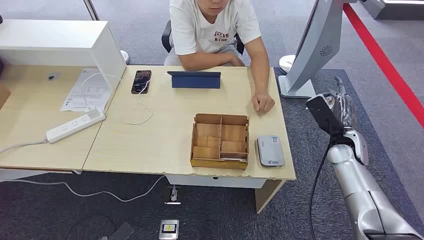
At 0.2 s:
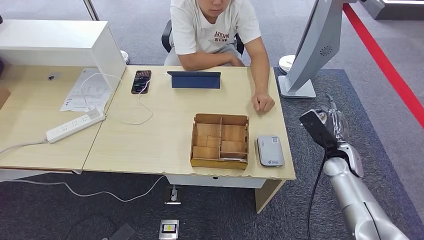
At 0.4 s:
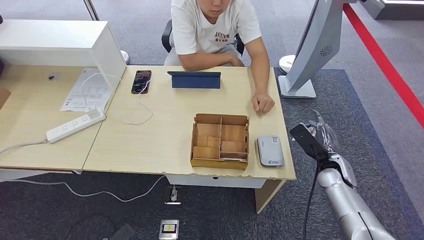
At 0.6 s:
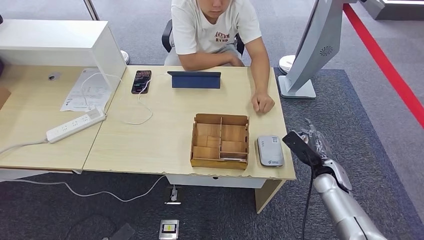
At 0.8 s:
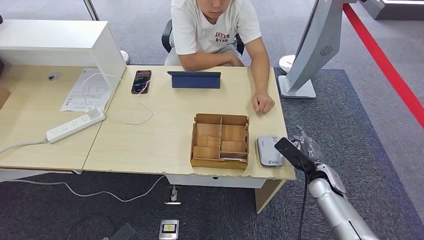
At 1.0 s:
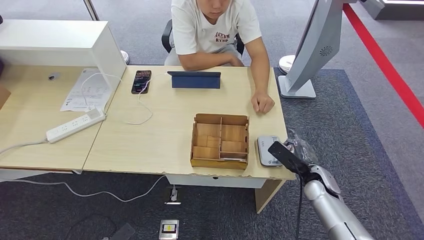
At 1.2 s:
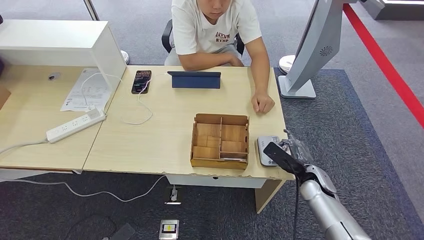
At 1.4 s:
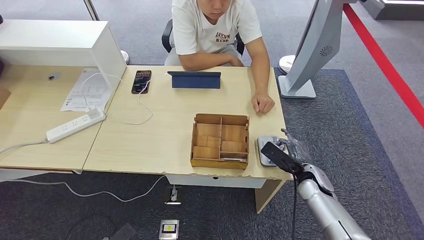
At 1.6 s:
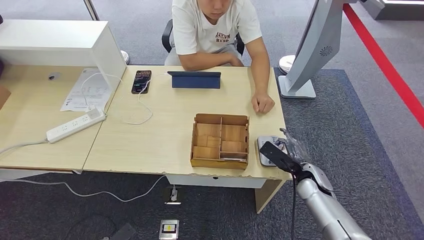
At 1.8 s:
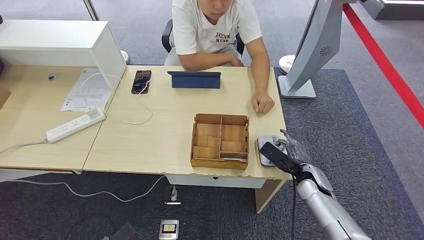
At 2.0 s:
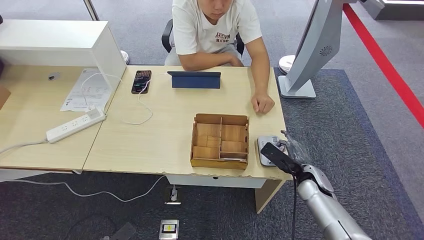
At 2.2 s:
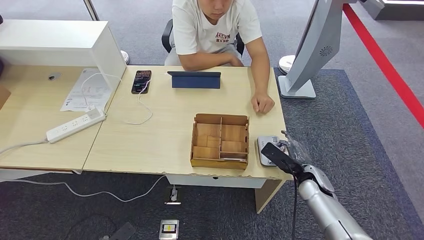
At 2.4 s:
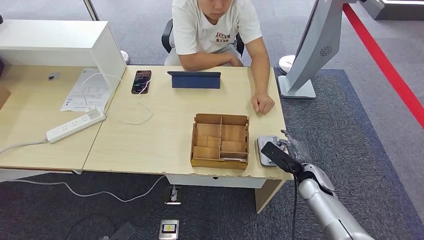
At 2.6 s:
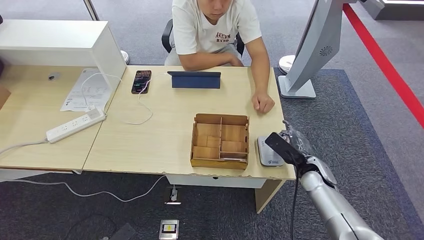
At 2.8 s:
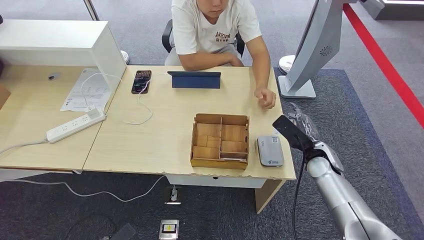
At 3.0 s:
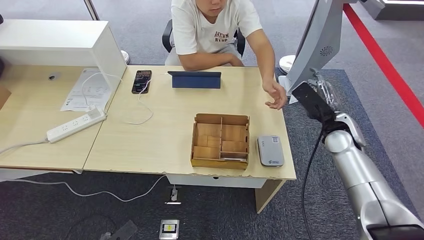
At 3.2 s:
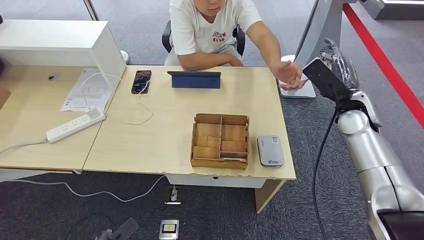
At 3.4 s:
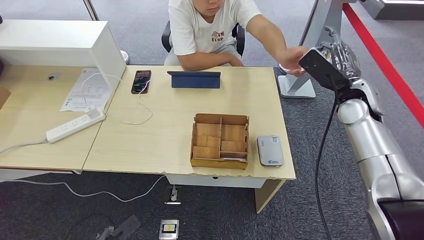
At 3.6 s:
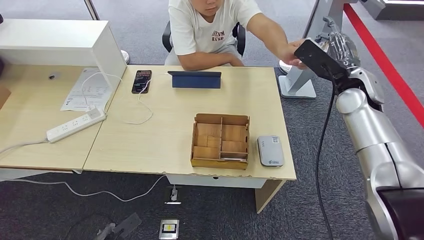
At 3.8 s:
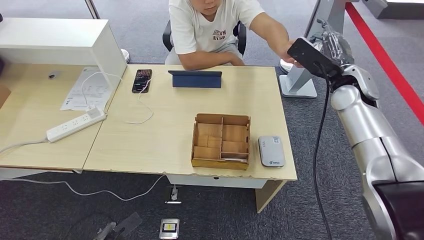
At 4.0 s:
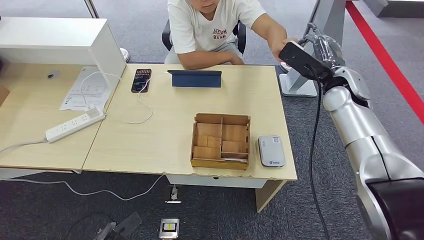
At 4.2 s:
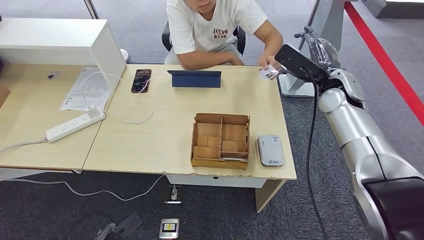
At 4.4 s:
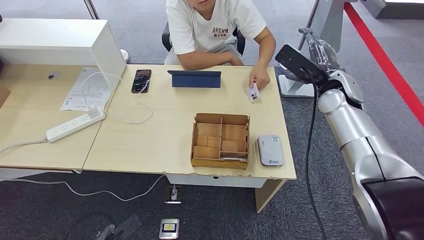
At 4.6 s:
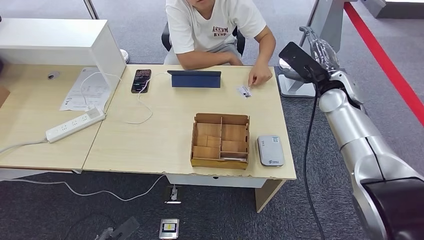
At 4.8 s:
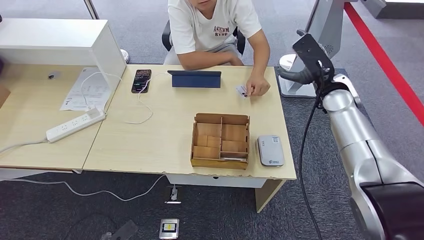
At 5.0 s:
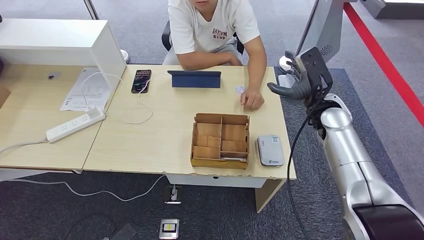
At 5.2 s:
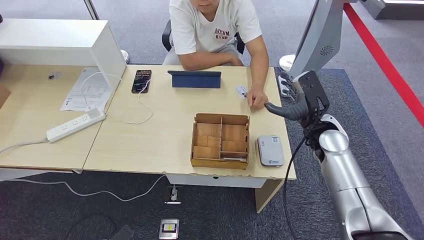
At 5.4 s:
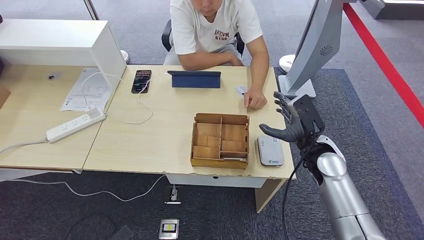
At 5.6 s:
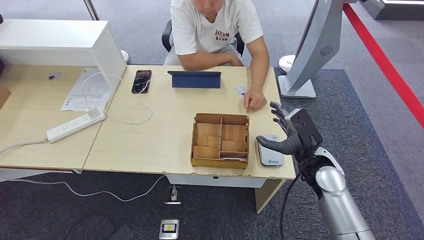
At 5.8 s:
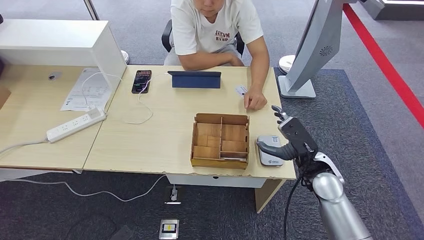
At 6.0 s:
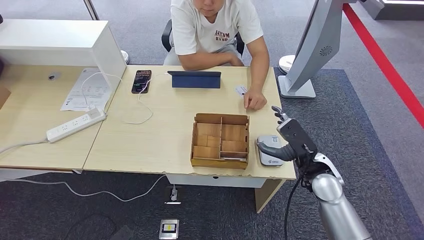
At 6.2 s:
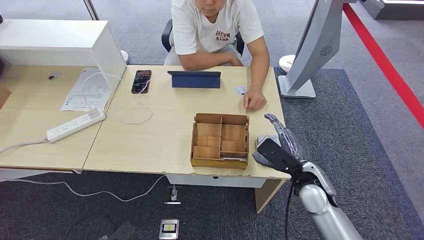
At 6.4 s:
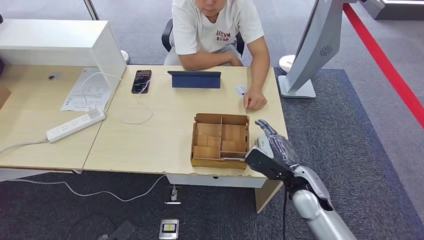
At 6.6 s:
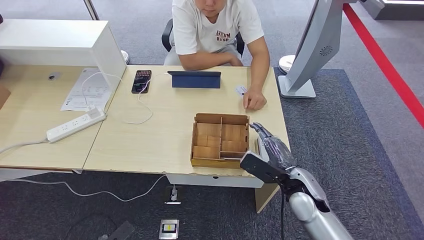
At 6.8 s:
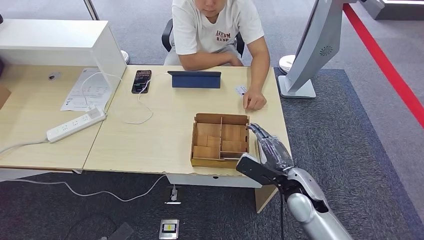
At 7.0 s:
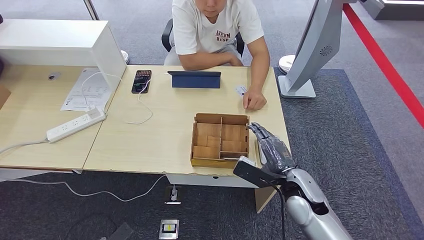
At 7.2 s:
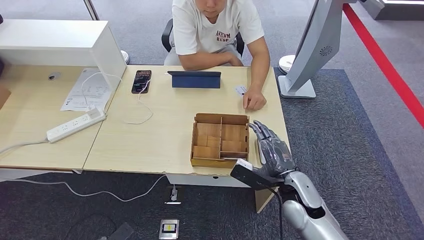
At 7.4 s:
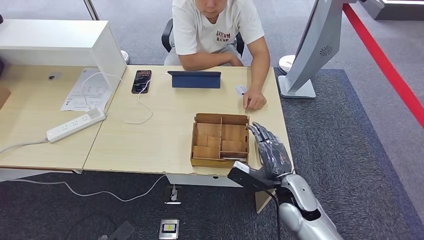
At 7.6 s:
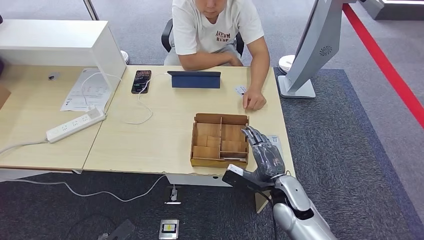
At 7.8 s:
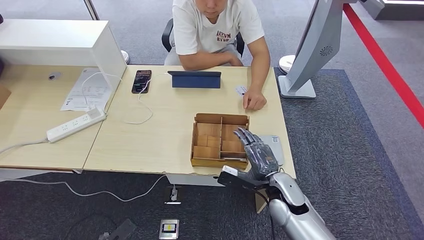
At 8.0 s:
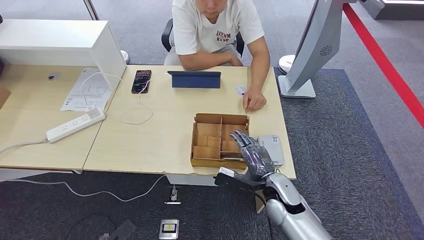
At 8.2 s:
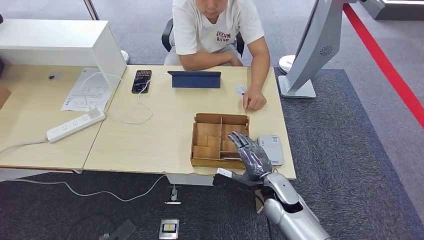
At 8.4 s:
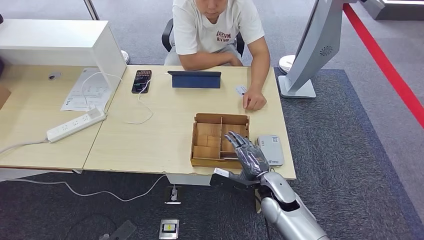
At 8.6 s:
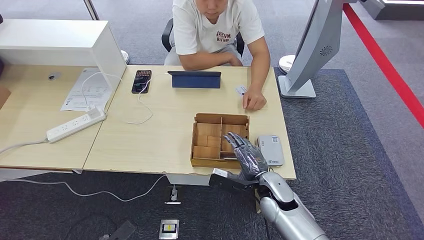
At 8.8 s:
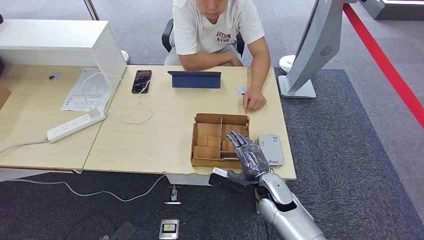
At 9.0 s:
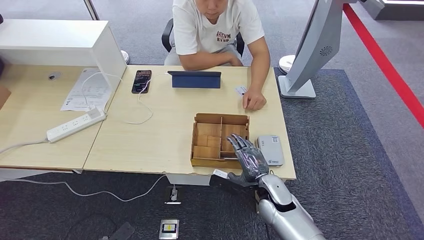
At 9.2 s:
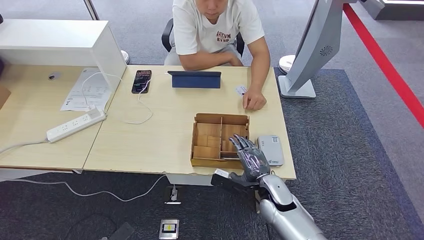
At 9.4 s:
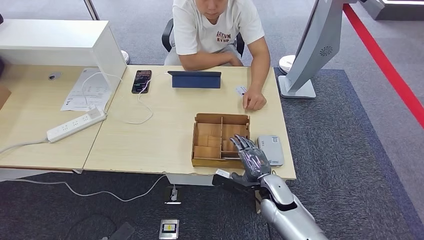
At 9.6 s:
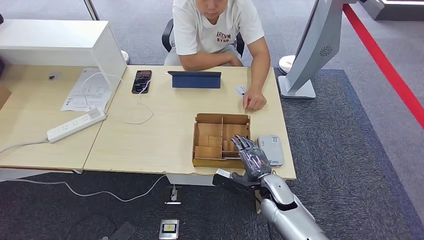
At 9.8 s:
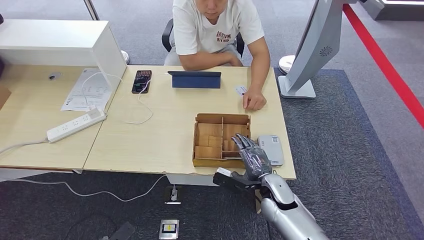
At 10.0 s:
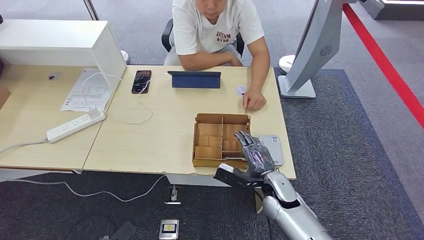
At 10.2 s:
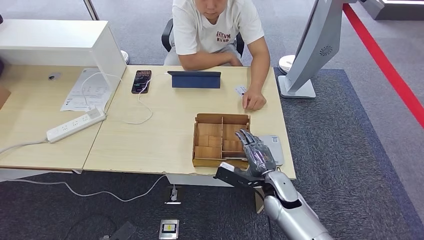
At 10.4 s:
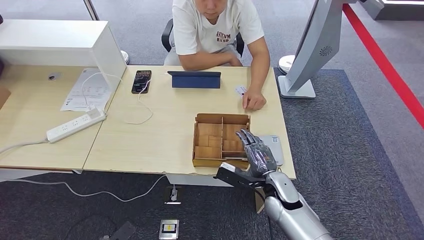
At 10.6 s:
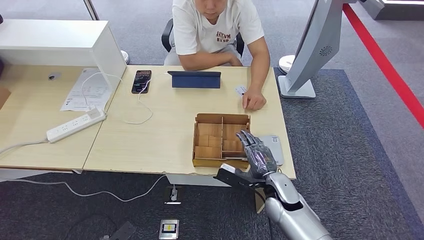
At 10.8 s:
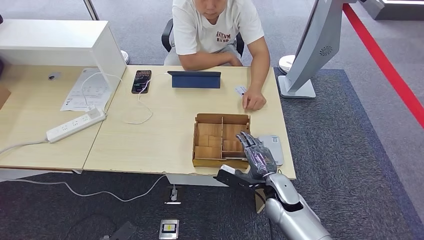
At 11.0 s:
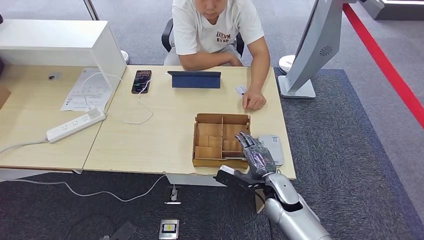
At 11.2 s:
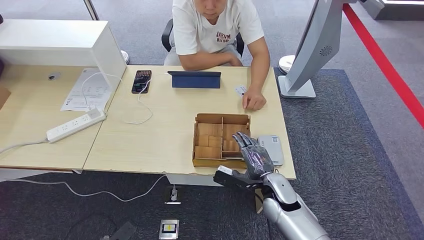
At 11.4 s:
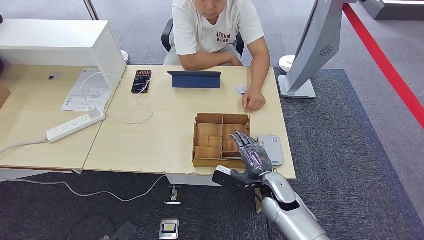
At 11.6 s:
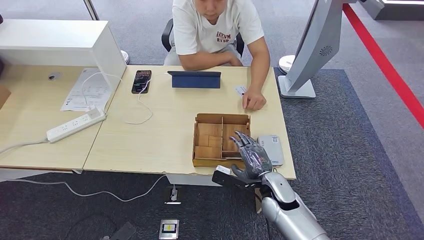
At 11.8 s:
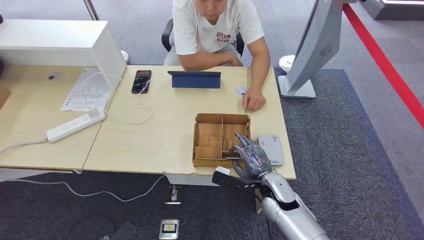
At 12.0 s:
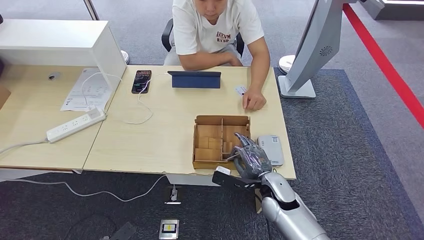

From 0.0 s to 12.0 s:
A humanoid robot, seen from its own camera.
Step, from 0.0 s to 1.2 s: Take the ID card from the person's hand.
Step, from 1.4 s to 2.6 s: Place the ID card on the card reader.
Step, from 2.8 s to 5.6 s: Hand the ID card to the person.
From 1.6 s to 3.0 s: The right hand goes some 15 cm upward and forward.
From 3.0 s to 4.4 s: The right hand is displaced upward and forward by some 10 cm.
From 4.4 s to 6.0 s: The right hand moves downward and backward, roughly 20 cm.
From 6.0 s to 7.6 s: The right hand goes approximately 10 cm to the left and downward.
From 7.6 s to 10.4 s: The hands stay close to where they were, moving slightly.
From 10.4 s to 12.0 s: Both hands stay about where they are.

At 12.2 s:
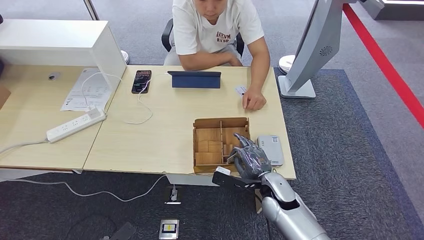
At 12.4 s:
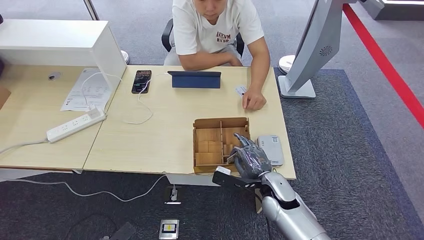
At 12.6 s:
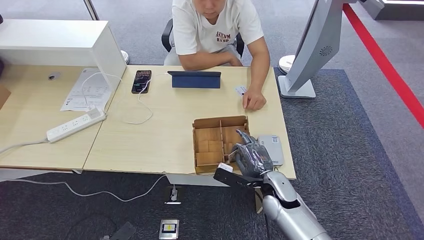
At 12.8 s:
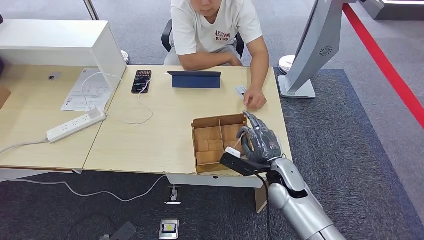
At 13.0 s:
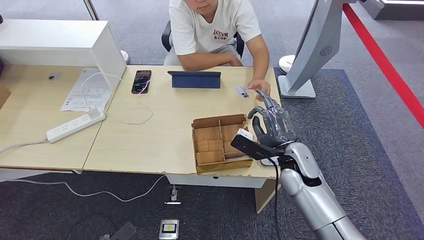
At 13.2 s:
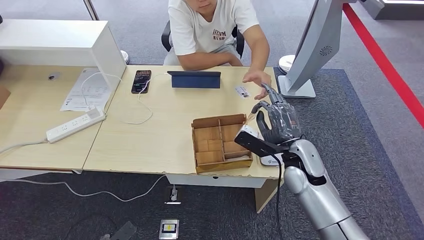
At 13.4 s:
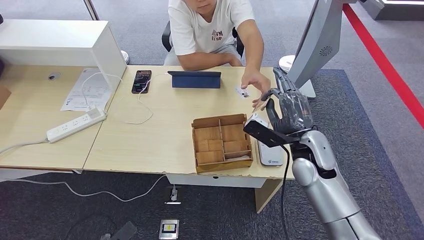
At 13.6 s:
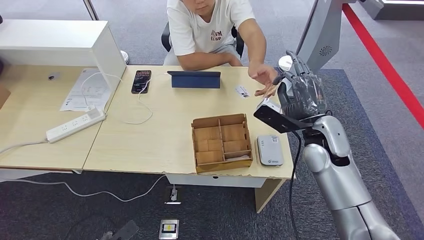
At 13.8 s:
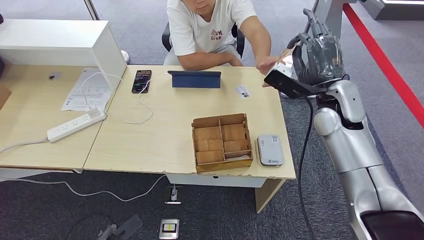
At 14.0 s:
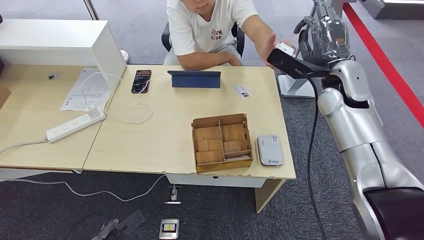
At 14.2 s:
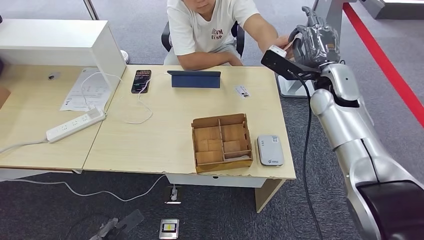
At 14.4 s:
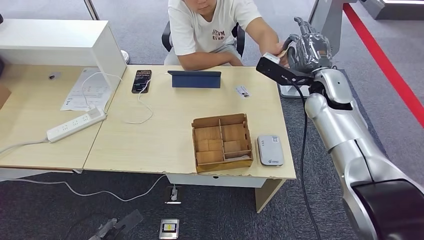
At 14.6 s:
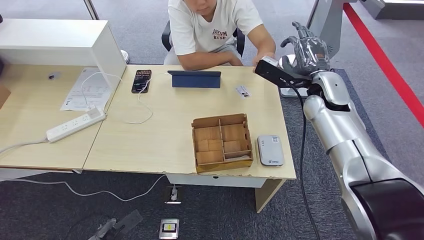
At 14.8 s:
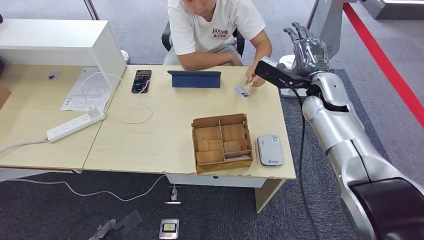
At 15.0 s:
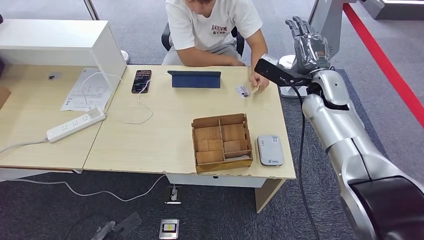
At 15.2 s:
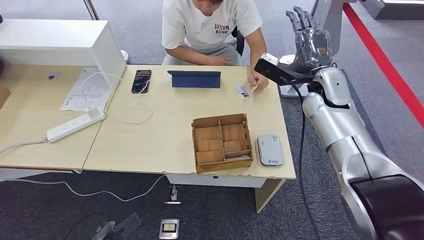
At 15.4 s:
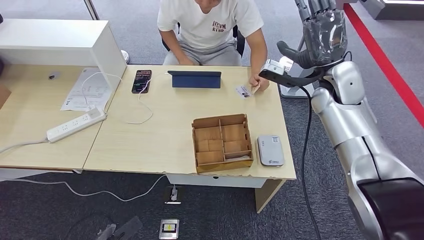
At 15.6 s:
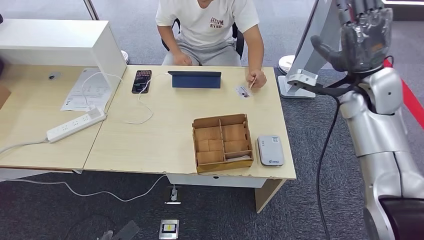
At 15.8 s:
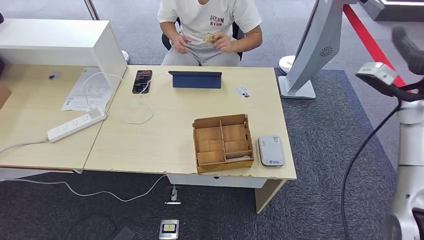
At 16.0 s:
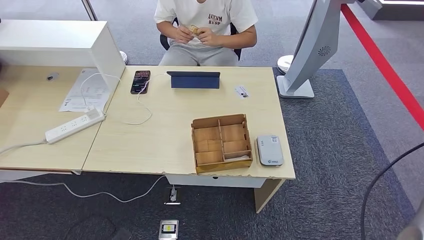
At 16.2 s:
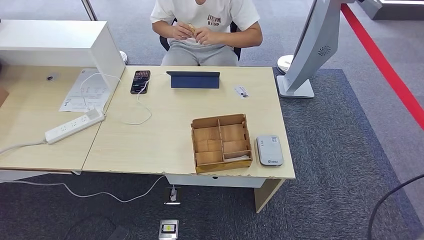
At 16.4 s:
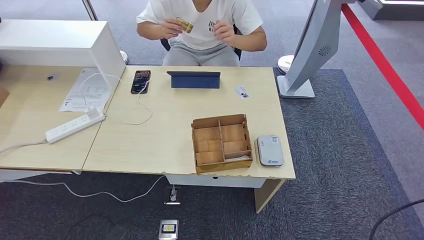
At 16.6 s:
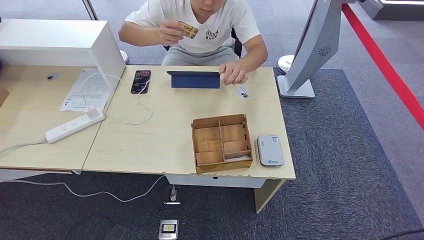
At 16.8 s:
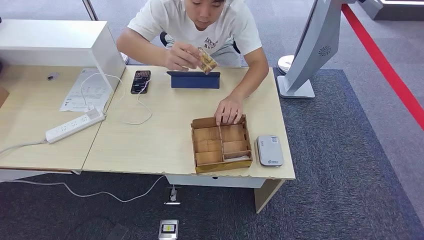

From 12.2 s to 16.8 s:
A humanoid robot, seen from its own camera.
Step, from 13.8 s to 16.8 s: Hand the room key to the person.
From 12.2 s to 13.8 s: The right hand shifts about 25 cm upward and forward.
From 13.8 s to 15.2 s: The hands make only small movements.
